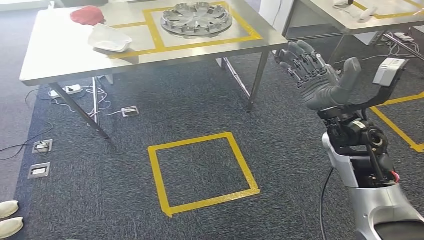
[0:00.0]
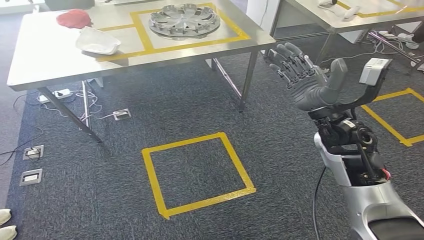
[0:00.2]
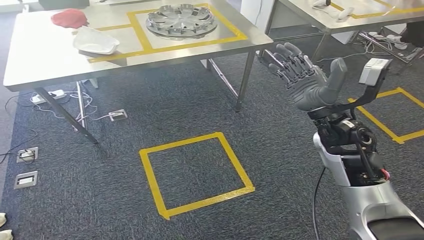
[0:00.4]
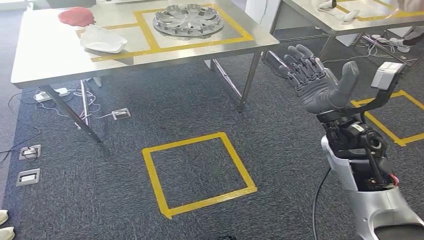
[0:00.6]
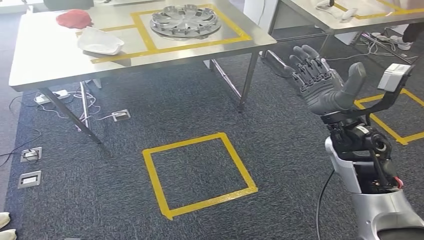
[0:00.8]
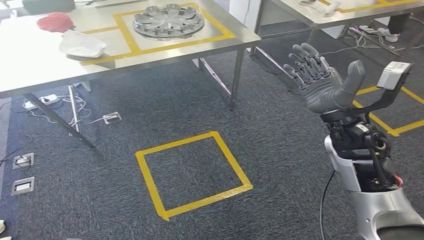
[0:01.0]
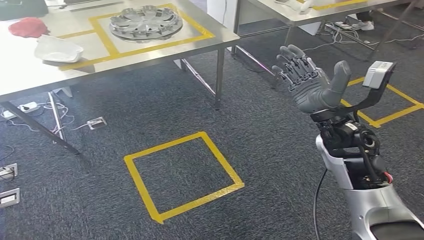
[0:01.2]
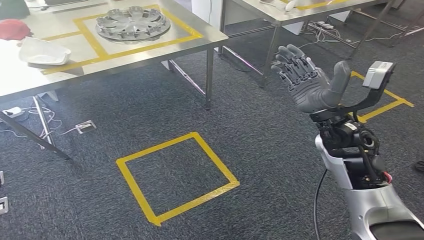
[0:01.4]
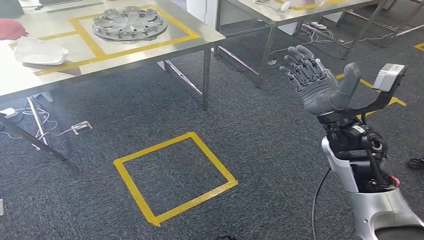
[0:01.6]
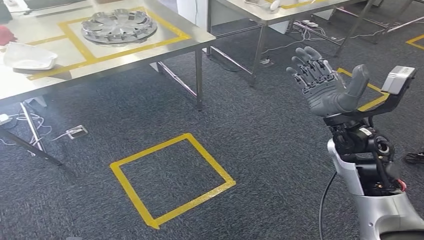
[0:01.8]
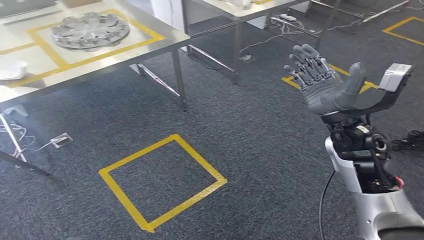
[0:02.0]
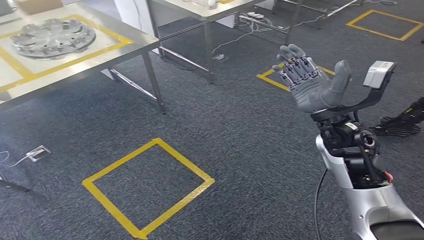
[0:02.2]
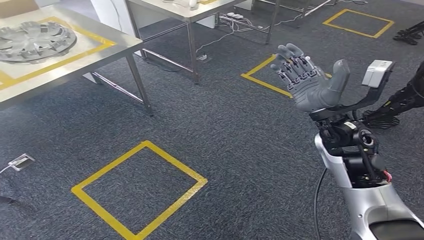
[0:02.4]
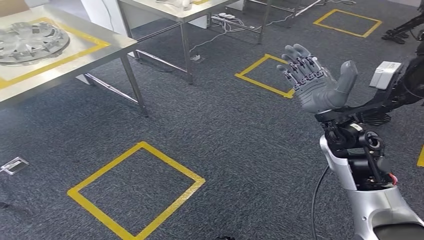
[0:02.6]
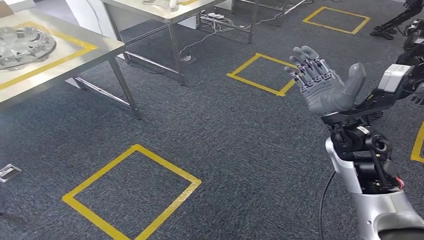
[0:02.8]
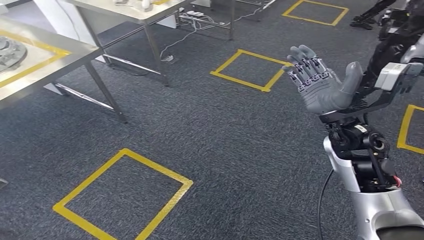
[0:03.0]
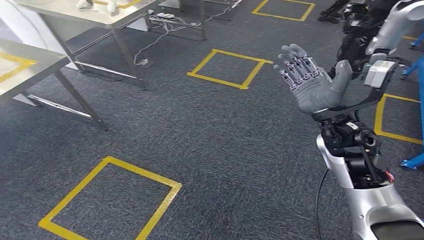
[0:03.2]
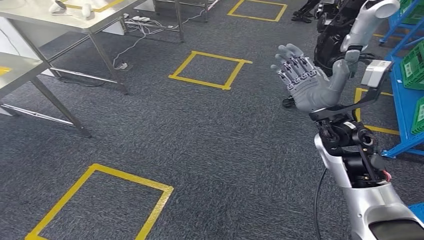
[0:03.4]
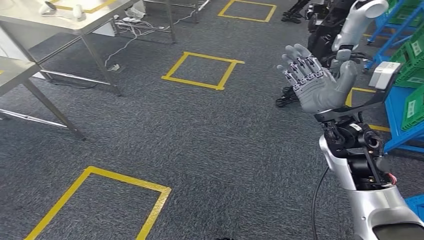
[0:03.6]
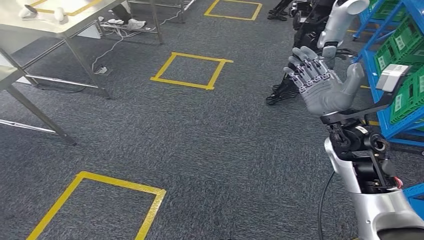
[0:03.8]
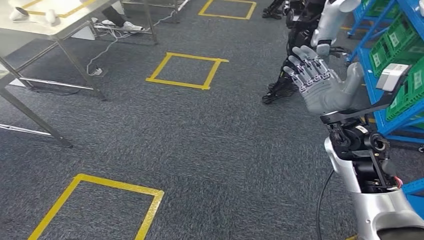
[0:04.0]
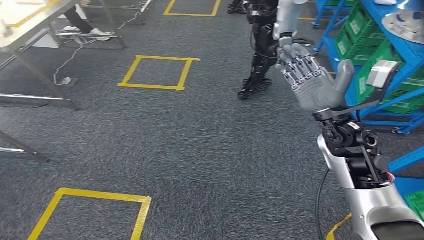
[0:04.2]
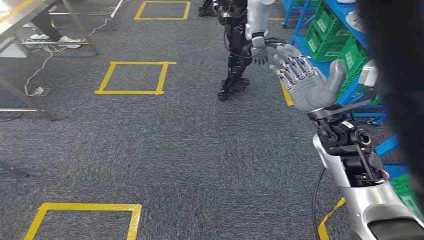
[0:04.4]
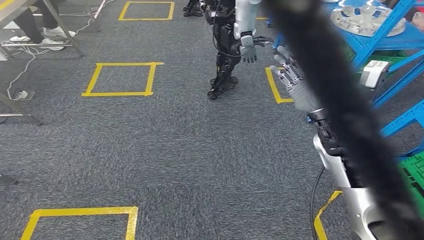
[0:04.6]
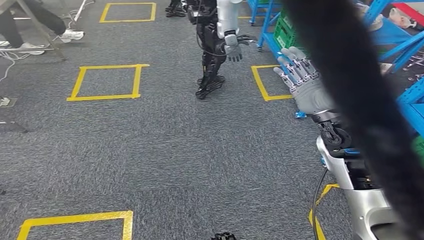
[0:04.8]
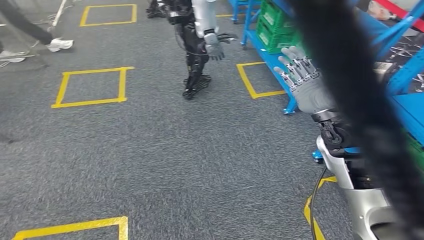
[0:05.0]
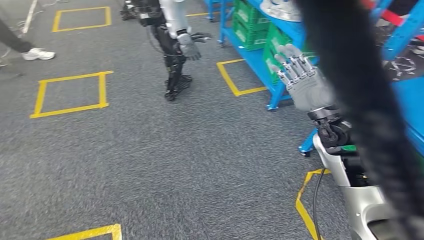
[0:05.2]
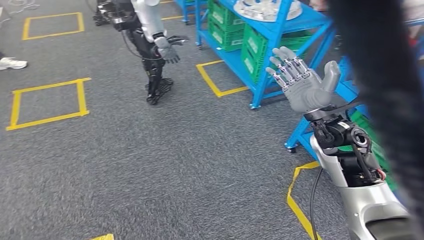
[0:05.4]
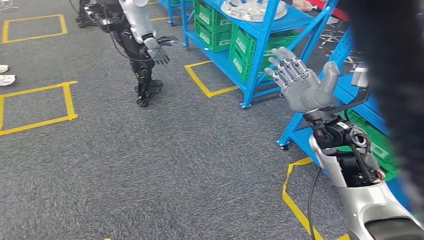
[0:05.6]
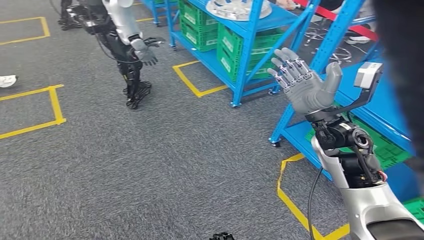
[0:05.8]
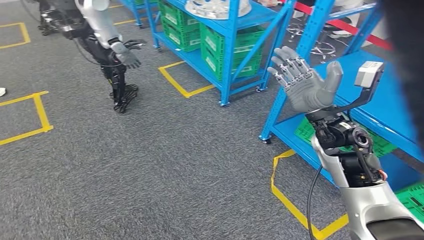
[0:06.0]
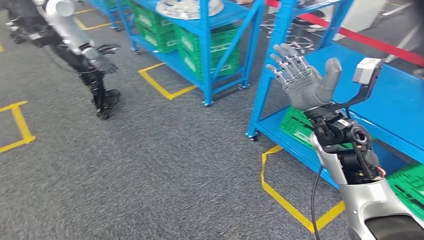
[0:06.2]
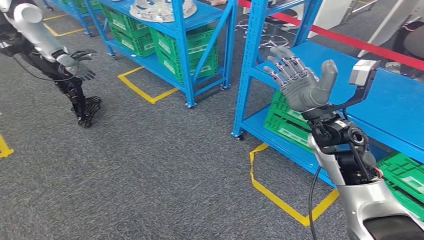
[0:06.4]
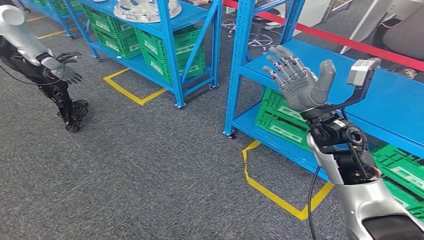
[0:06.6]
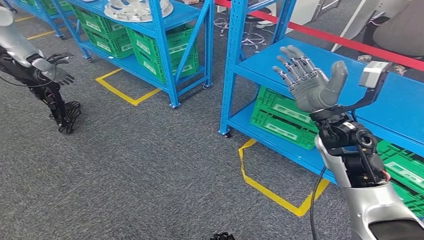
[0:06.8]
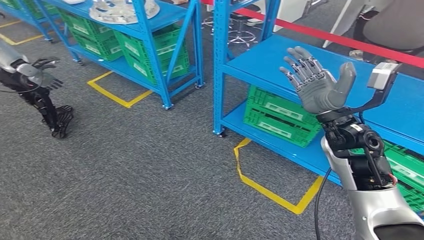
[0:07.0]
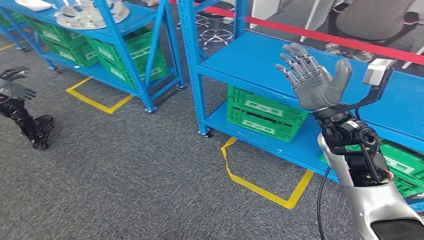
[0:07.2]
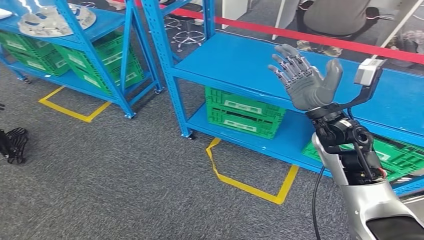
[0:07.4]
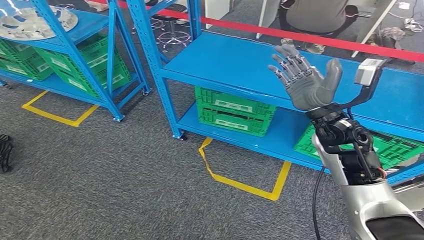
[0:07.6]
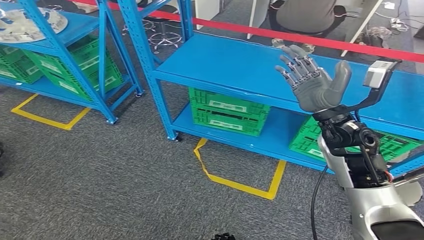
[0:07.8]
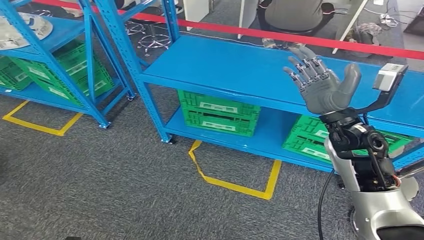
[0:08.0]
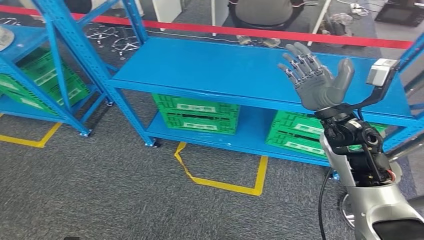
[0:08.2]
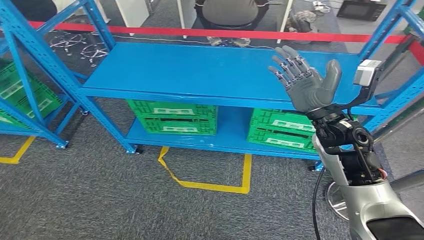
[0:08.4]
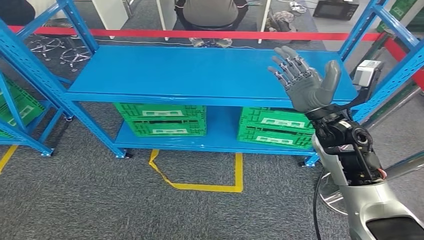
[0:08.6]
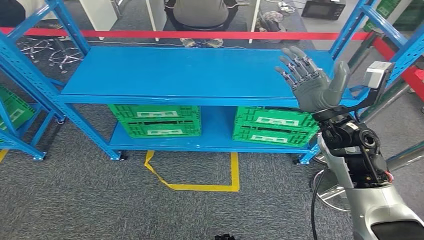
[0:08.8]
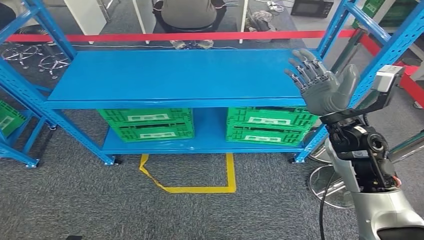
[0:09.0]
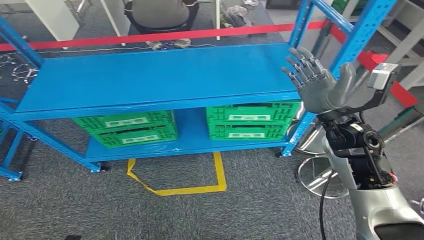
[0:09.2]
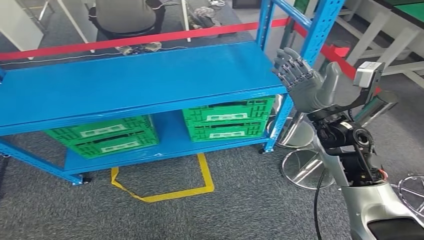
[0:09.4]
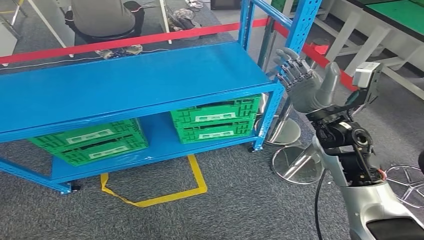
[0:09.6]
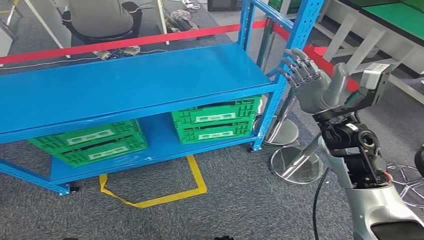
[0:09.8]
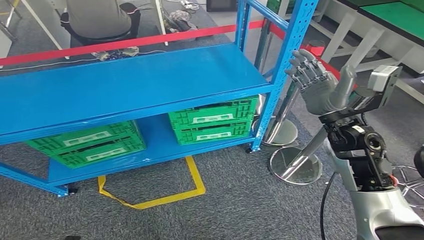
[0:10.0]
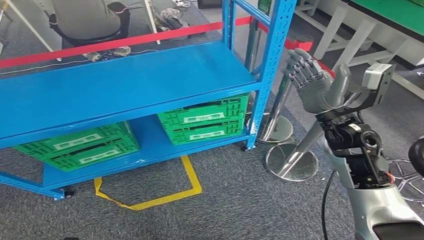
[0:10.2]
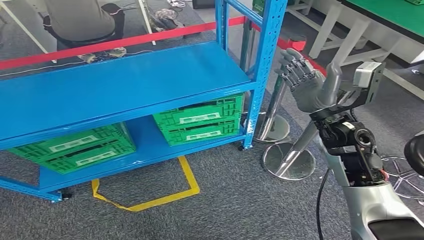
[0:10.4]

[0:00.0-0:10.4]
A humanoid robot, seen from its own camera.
Step, 0:00.0 to 0:10.2: Return to the initial position at the workbench.
